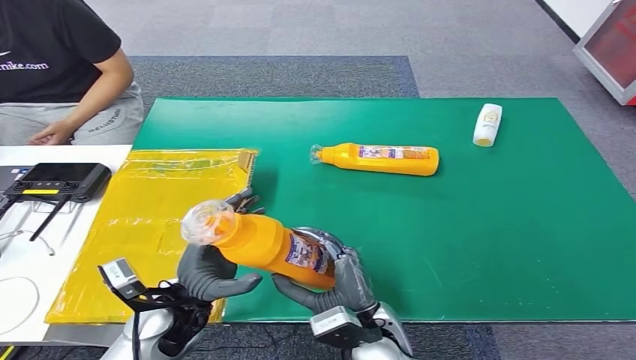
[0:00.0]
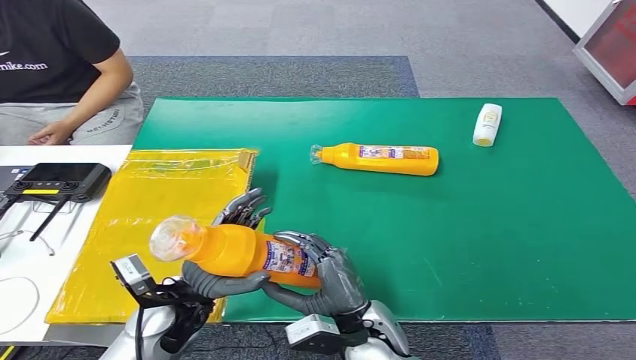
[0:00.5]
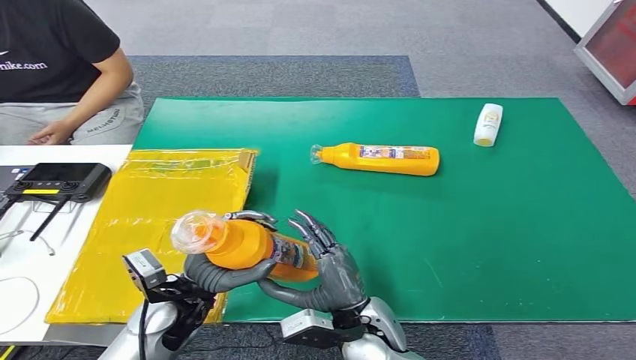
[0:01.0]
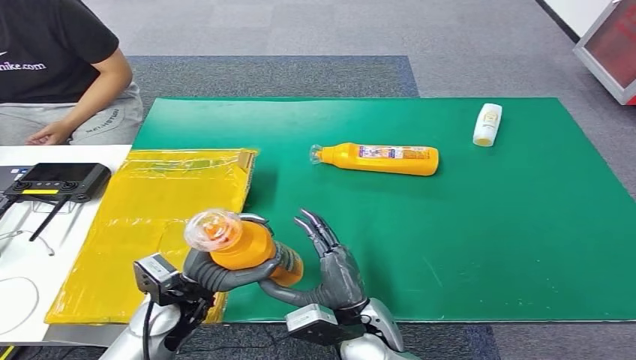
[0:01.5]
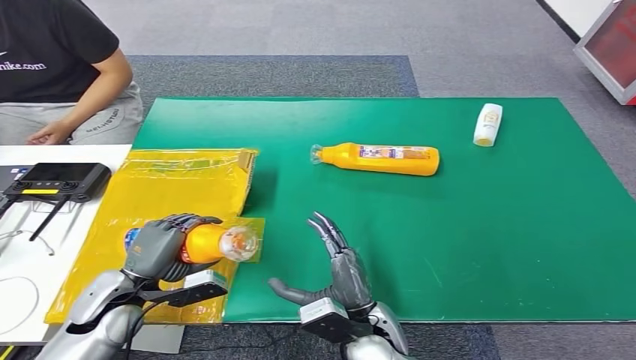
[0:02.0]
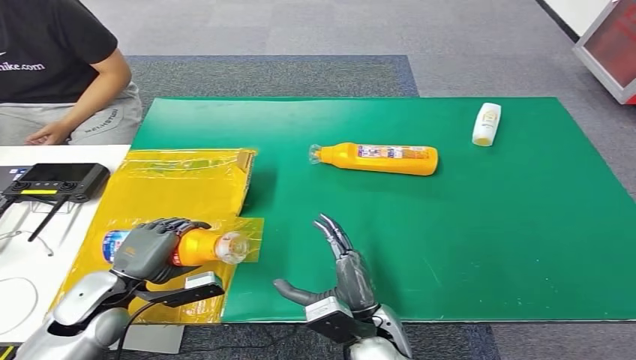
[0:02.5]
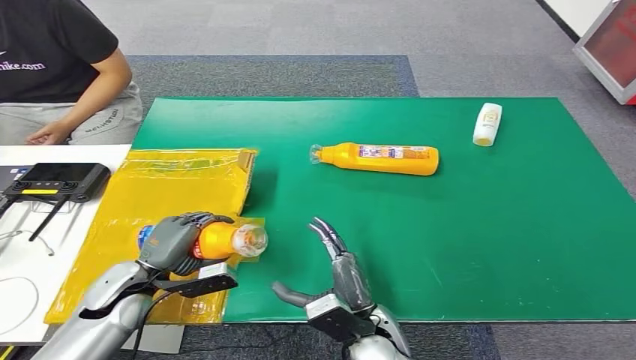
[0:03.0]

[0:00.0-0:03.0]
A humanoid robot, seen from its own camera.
Step, 0:00.0 to 0:03.0: Turn the bottle to the front side.
0:00.0 to 0:01.5: The hands stay close to where they were, moving slightly.
0:01.5 to 0:03.0: The left hand is displaced to the left by roughly 10 cm.
